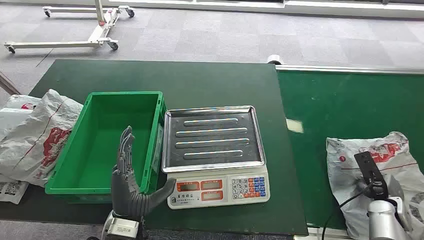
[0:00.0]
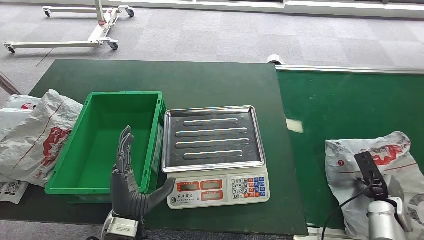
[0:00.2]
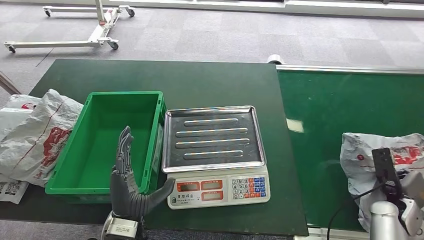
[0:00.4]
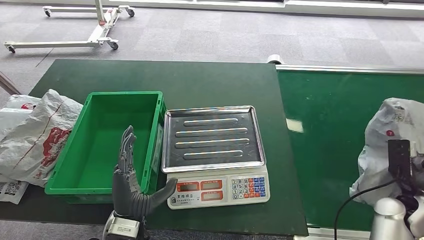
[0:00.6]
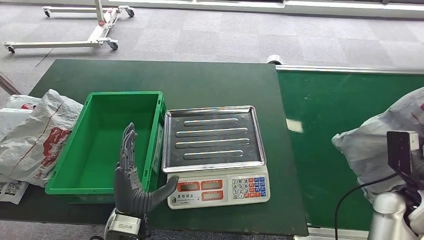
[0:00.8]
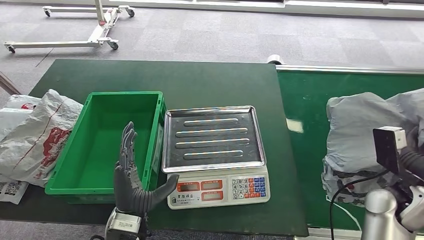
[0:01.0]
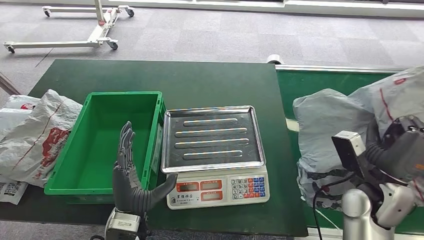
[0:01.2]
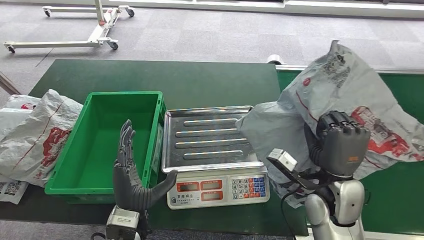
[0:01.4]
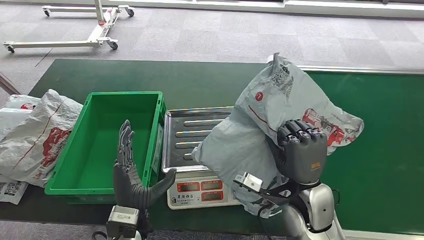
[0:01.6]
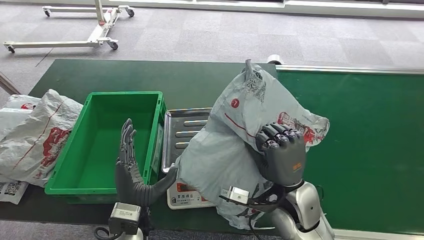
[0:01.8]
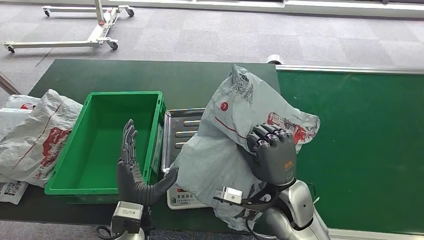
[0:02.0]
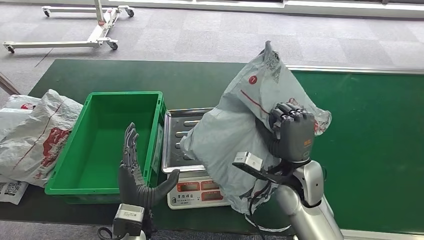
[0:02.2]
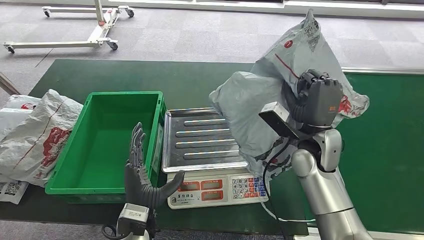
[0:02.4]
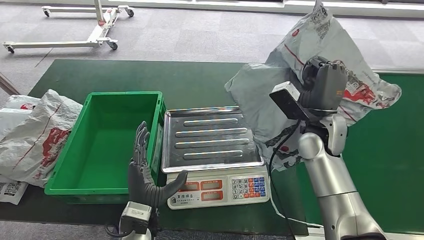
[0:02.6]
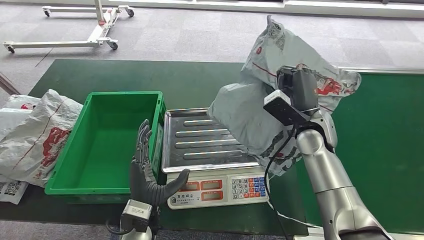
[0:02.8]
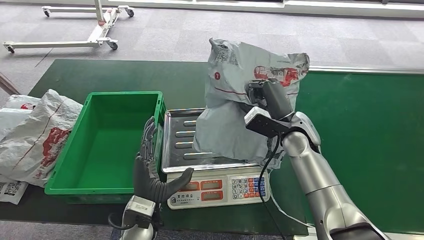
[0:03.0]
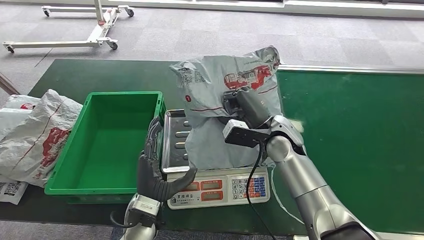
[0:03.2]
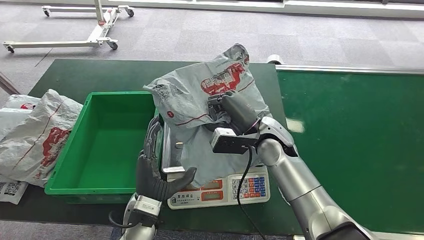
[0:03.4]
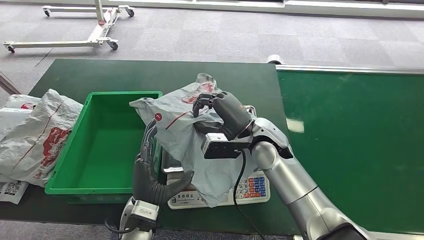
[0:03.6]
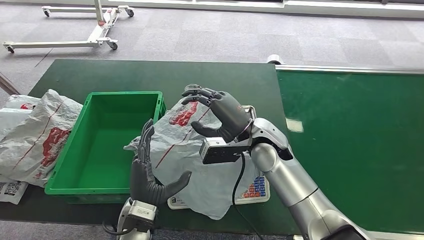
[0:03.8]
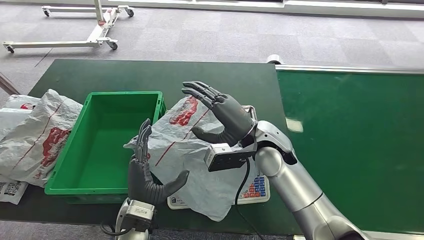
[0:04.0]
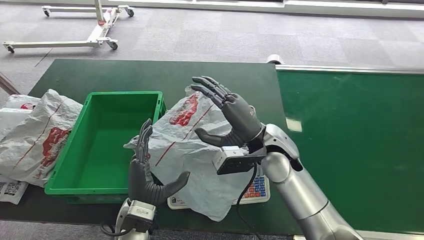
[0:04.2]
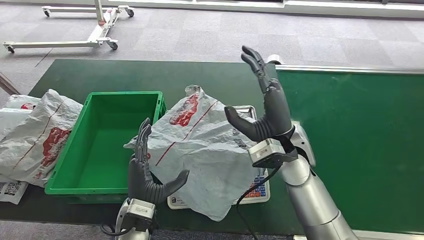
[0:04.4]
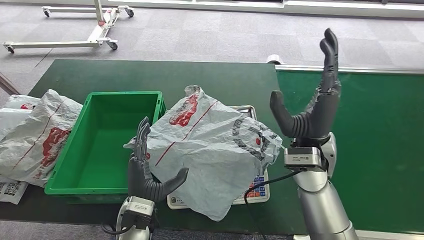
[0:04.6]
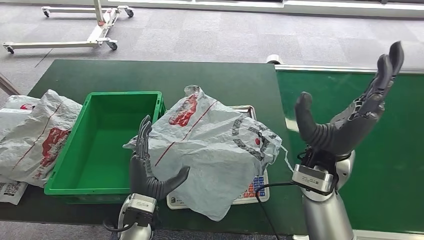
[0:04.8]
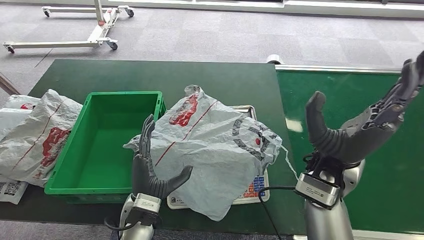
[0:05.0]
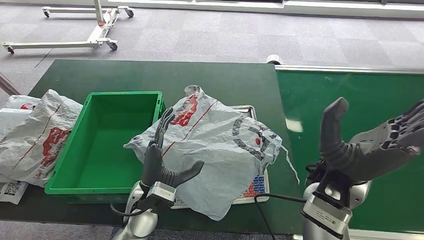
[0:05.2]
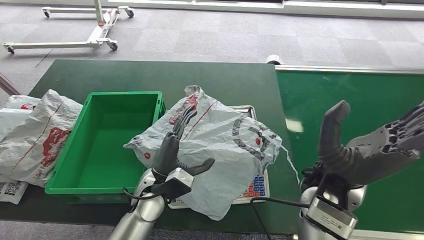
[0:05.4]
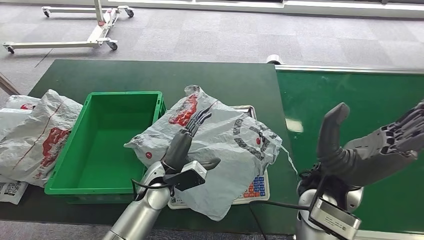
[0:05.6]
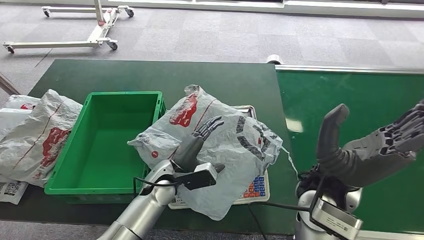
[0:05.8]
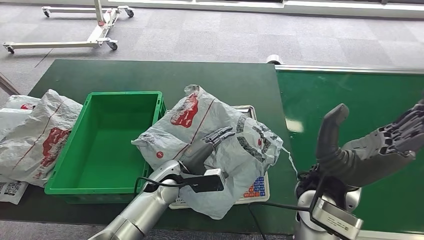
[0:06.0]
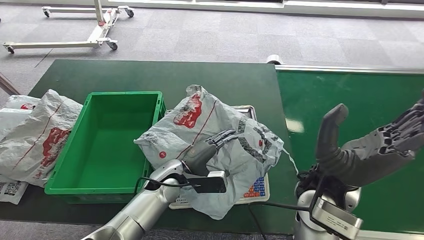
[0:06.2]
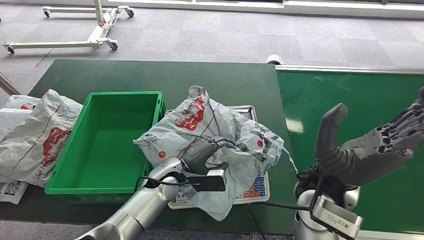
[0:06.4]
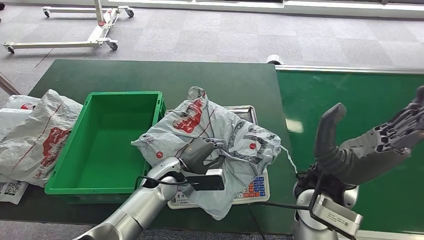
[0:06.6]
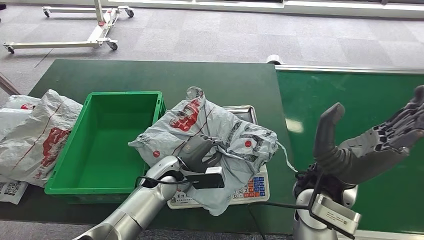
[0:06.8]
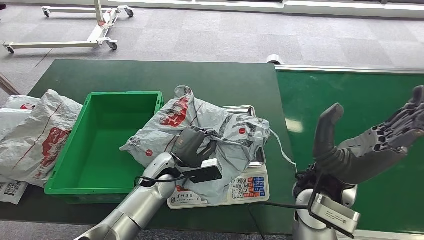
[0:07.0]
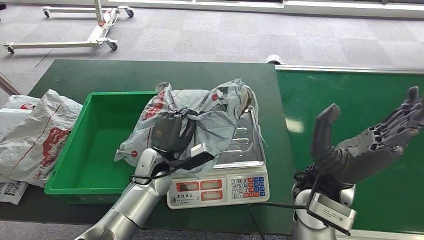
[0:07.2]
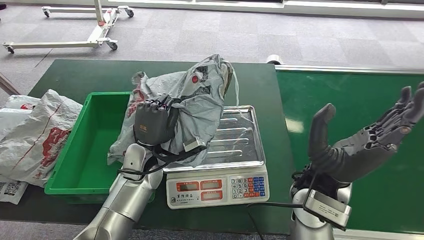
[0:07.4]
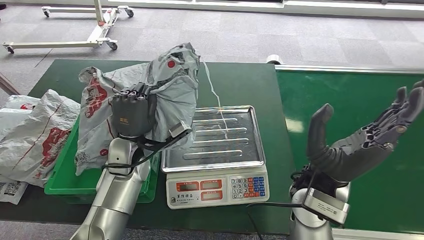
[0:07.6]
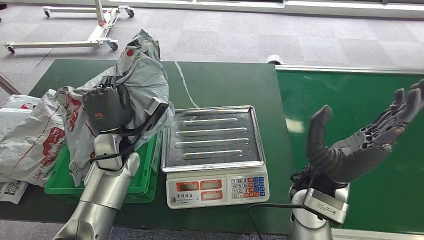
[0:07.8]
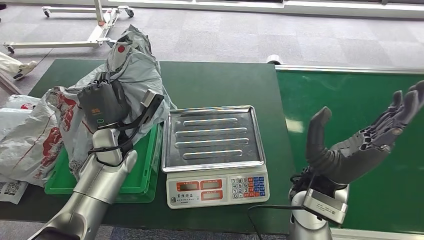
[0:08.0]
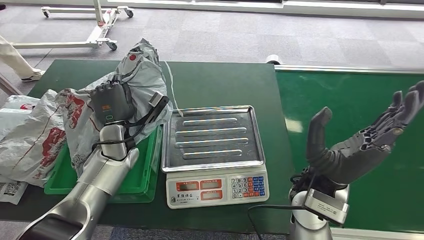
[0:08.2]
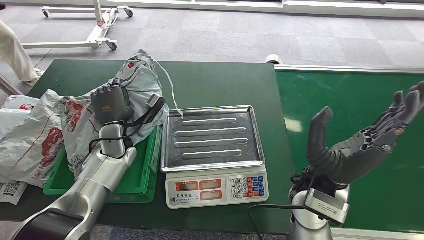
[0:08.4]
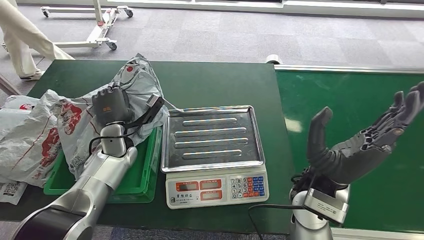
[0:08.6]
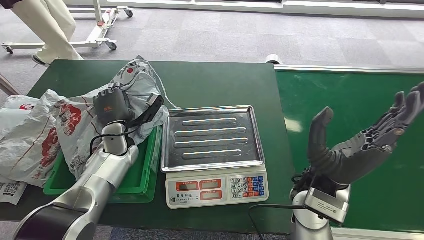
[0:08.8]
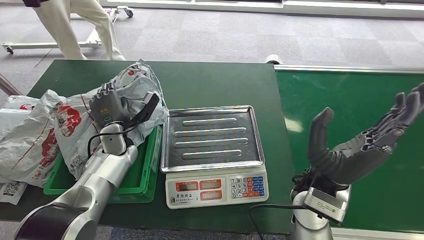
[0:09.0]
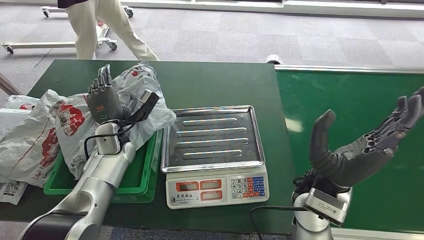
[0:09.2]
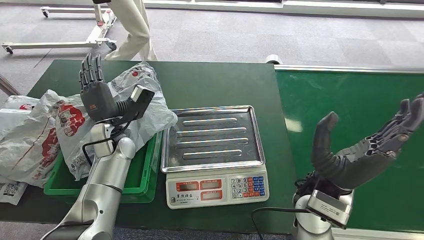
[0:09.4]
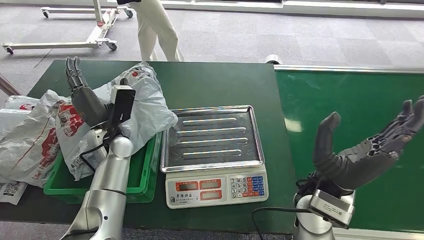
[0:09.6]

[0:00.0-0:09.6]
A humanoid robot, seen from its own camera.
Step, 0:00.0 to 0:01.2: Pick up the package from the conveyor belt.
Step, 0:02.2 to 0:03.8: Place the package onto the inbound machine.
Step, 0:05.8 to 0:07.2: Pick up the package from the inbound machine.
Step, 0:07.4 to 0:09.6: Place the package into the parcel locker.
0:04.8 to 0:06.4: The left hand heads forward, covering some 10 cm. The right hand ends up about 5 cm from where it was.
